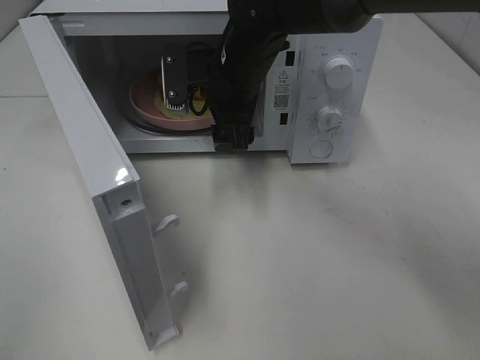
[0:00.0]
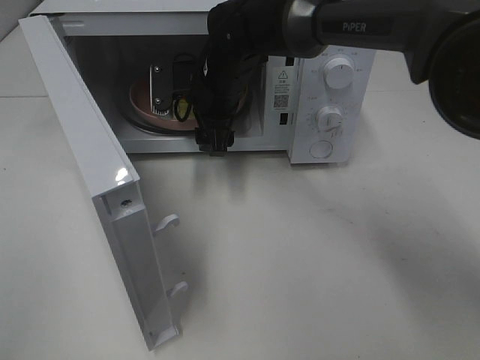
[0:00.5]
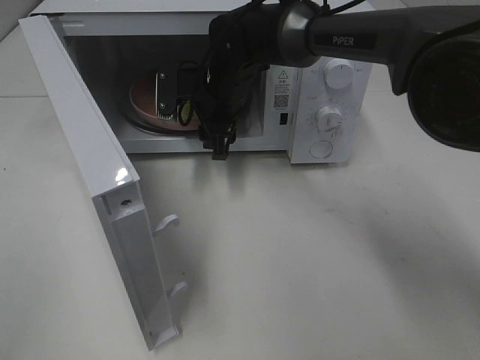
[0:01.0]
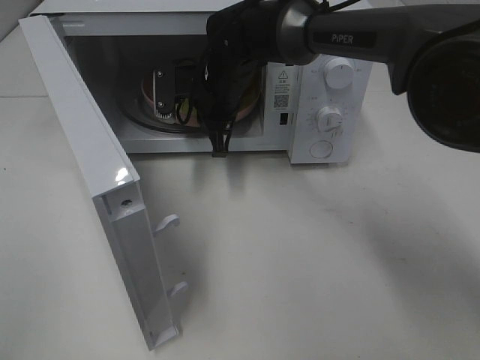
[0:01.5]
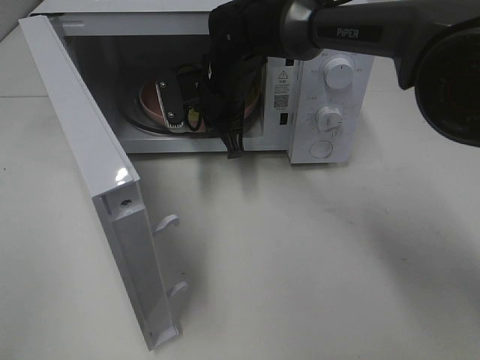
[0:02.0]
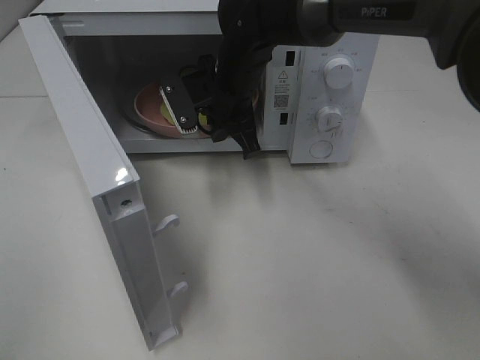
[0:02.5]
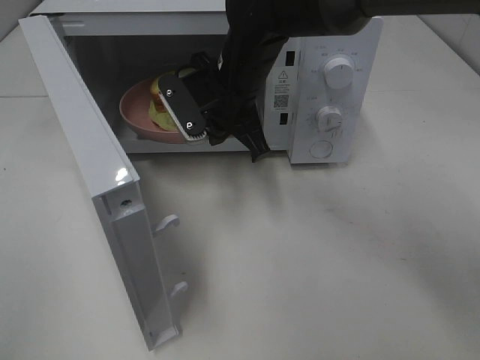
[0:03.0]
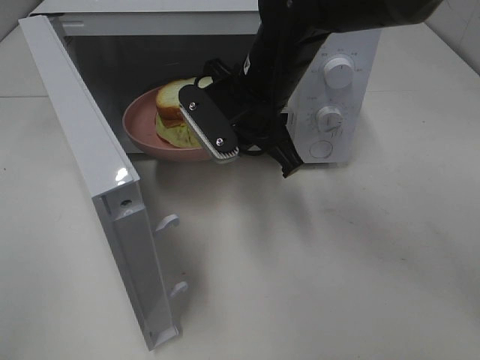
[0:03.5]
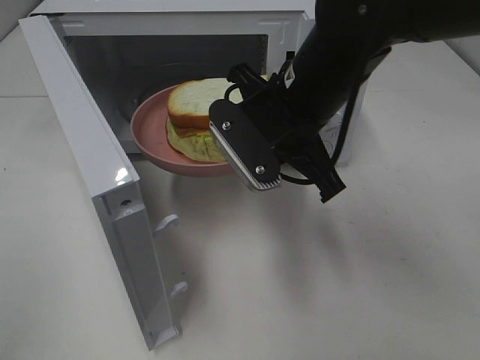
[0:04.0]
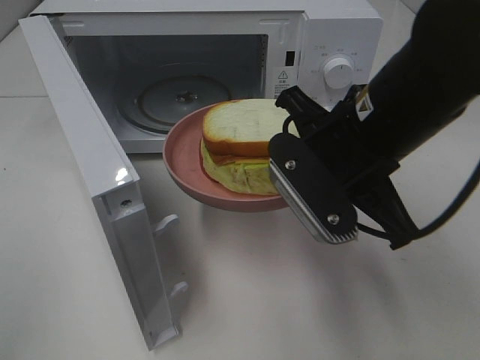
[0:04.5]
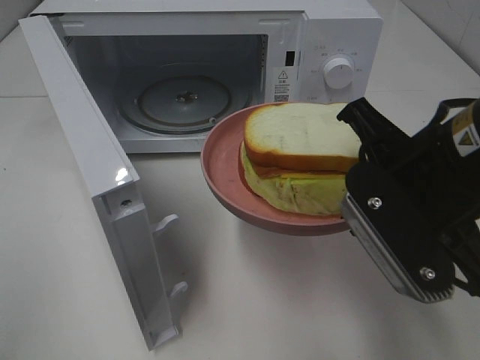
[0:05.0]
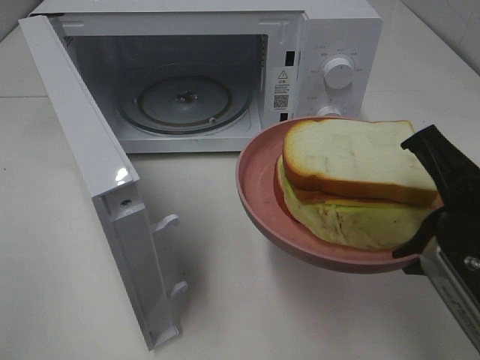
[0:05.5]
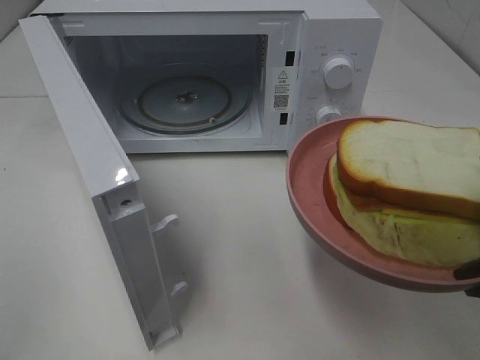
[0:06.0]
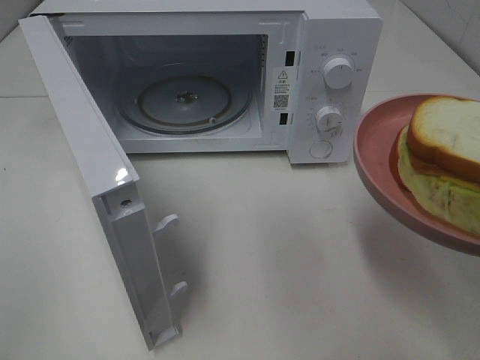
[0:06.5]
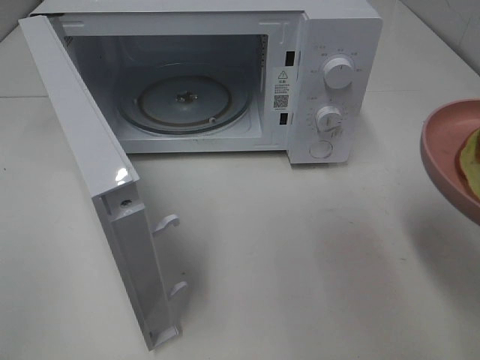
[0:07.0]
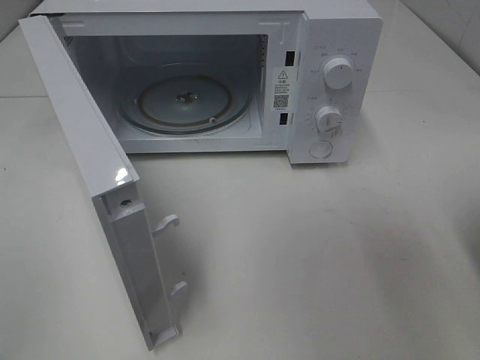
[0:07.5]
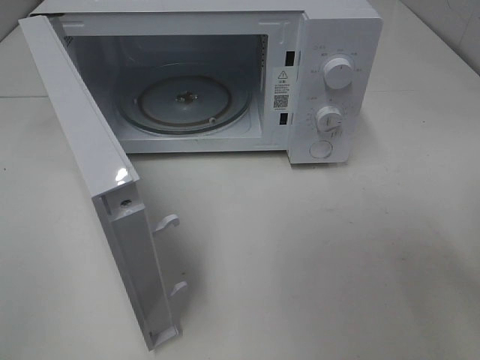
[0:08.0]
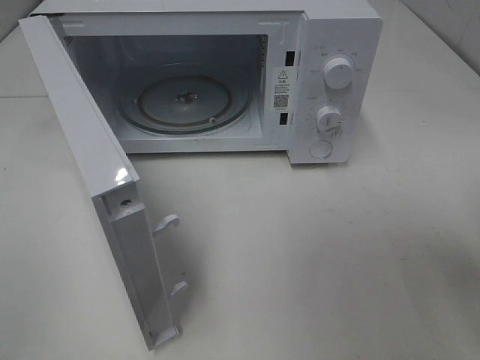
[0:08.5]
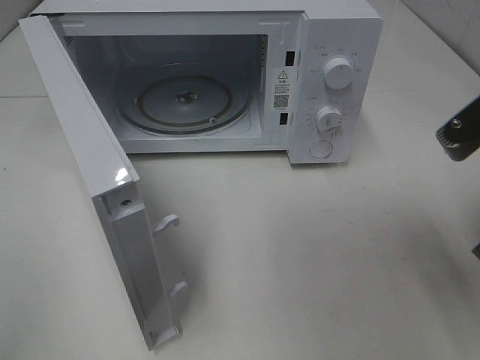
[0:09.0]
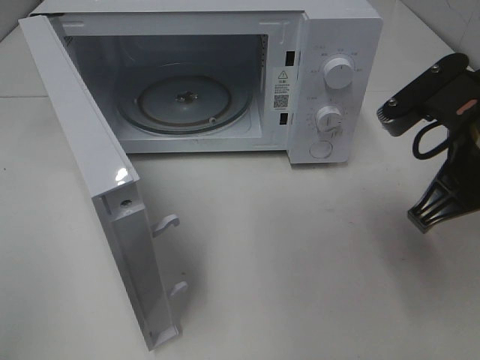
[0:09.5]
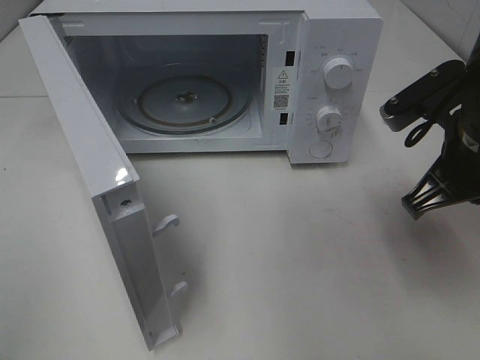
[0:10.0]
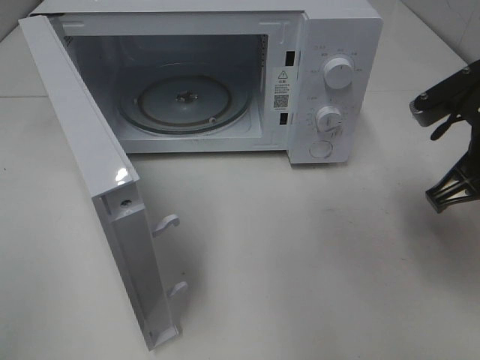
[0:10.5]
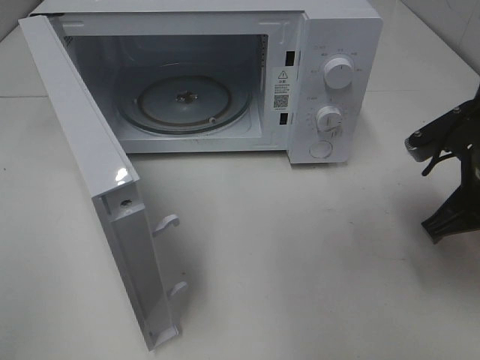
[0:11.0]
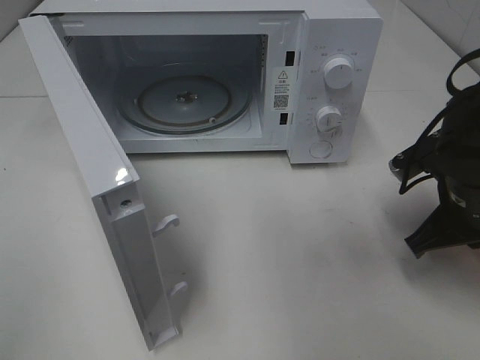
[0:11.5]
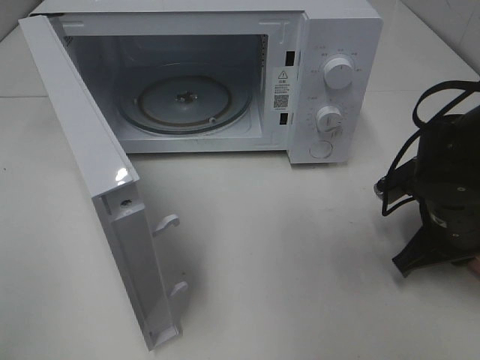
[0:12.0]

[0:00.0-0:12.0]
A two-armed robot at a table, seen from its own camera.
Task of the whole recording: Heat Sandwich.
0:00.0 to 0:02.0: The right gripper changes place by about 5 cm, and closes up.
0:02.0 to 0:04.0: The right gripper goes roughly 20 cm backward, to the right and upward.
0:04.0 to 0:06.0: The right gripper shifts about 25 cm backward and to the right.
0:08.0 to 0:10.0: The right gripper heads forward and to the left, covering about 15 cm.
0:10.0 to 0:12.0: The right gripper is displaced downward by some 10 cm.

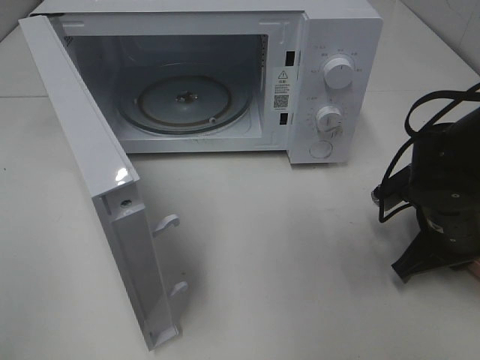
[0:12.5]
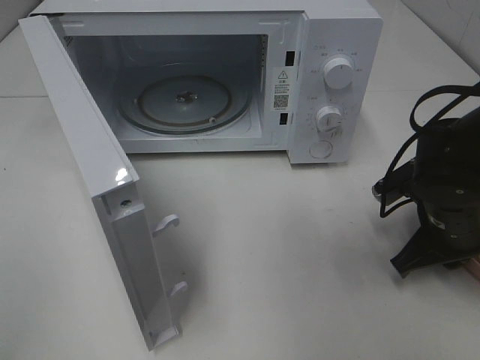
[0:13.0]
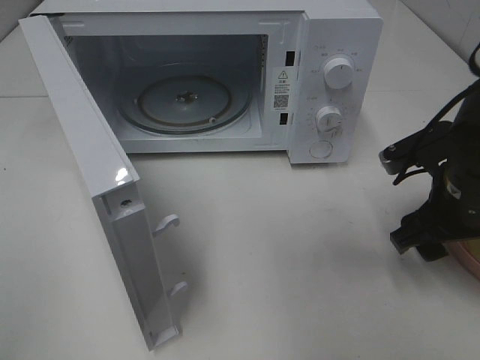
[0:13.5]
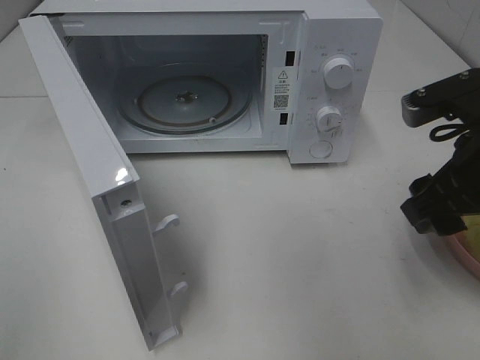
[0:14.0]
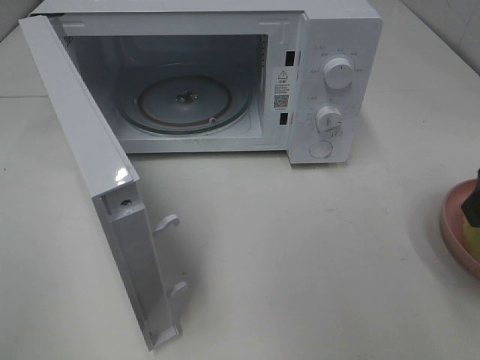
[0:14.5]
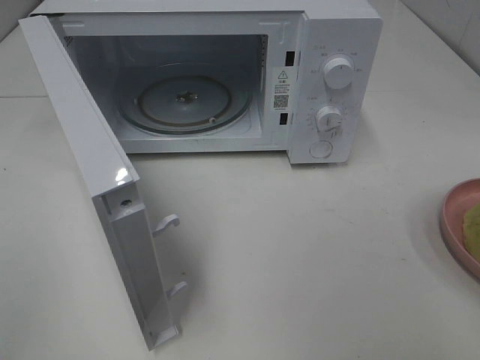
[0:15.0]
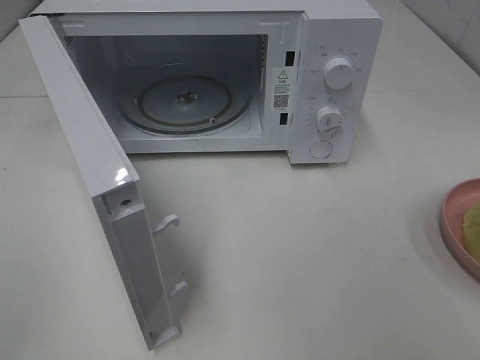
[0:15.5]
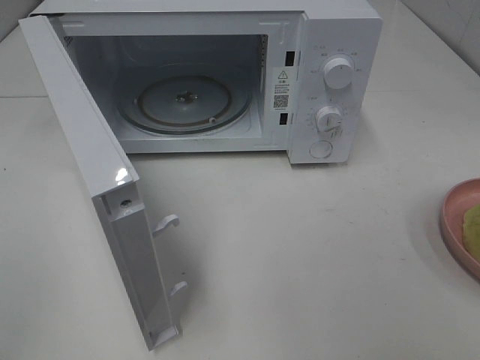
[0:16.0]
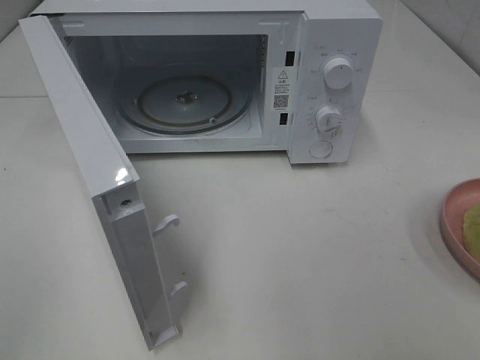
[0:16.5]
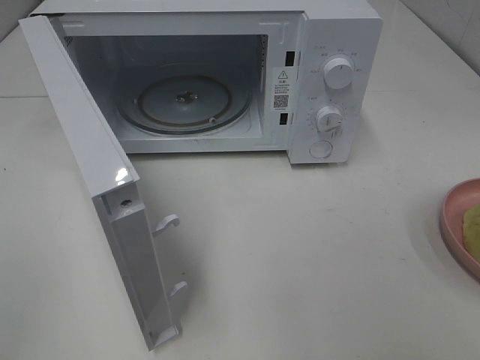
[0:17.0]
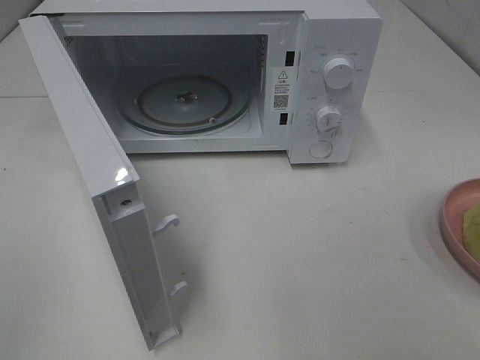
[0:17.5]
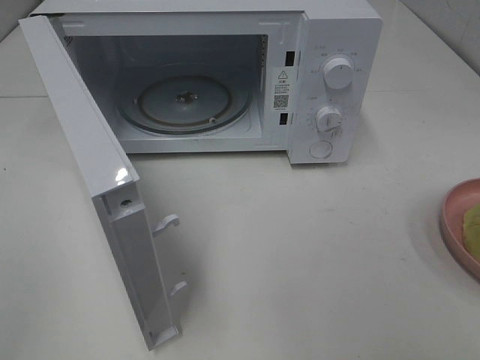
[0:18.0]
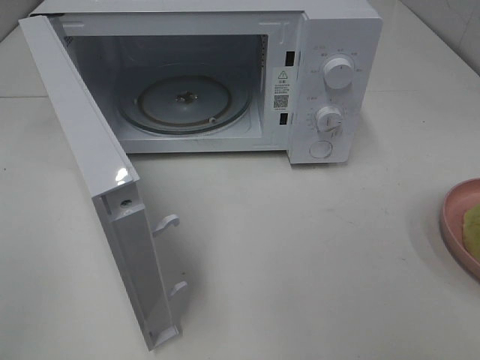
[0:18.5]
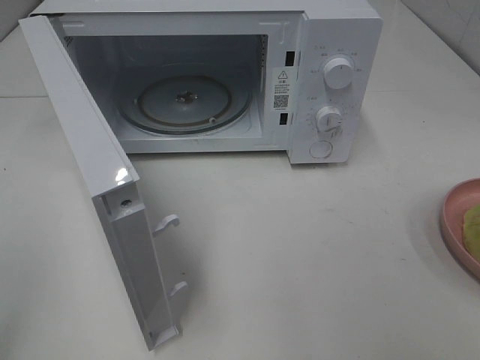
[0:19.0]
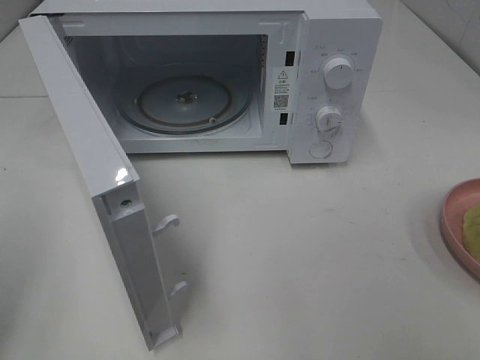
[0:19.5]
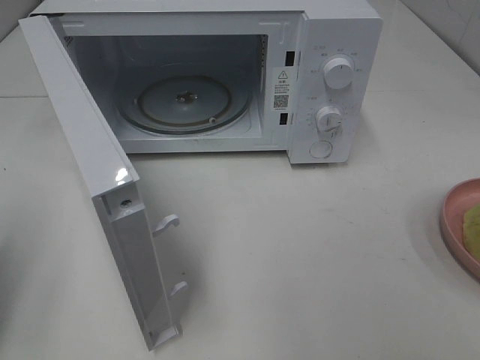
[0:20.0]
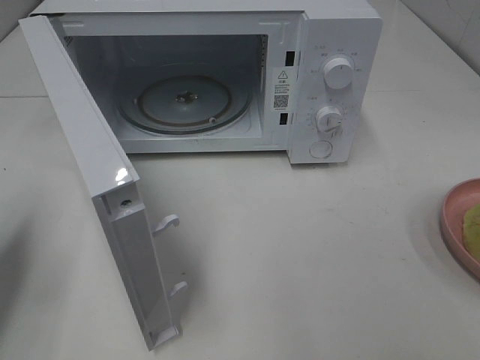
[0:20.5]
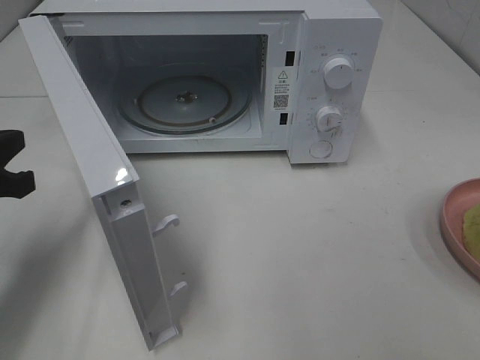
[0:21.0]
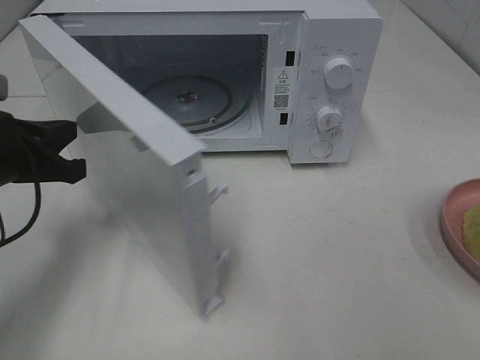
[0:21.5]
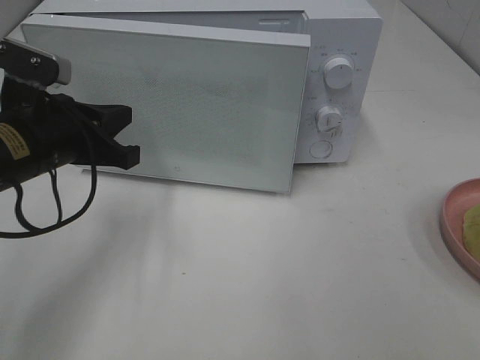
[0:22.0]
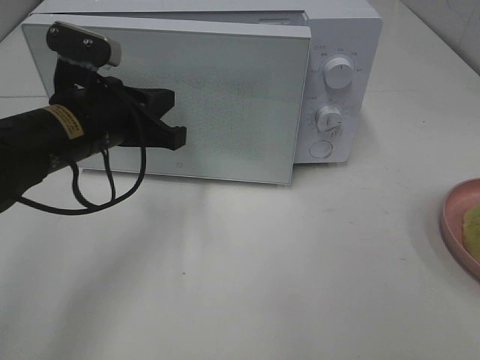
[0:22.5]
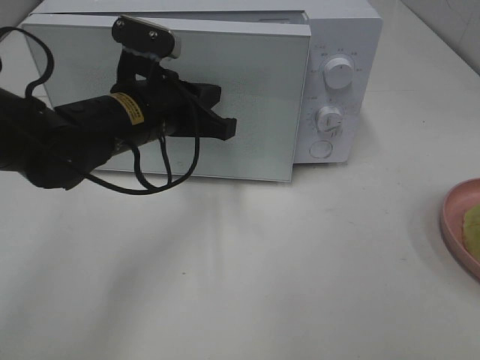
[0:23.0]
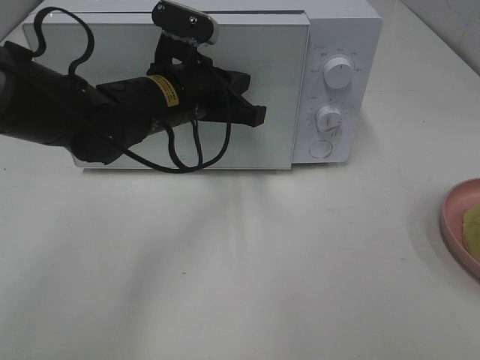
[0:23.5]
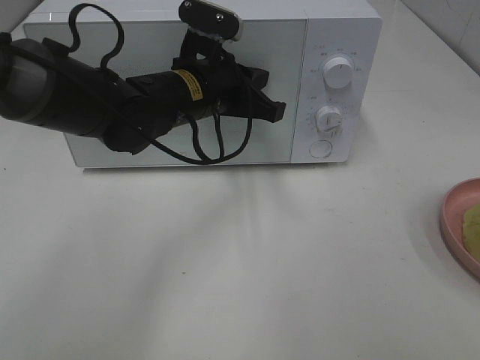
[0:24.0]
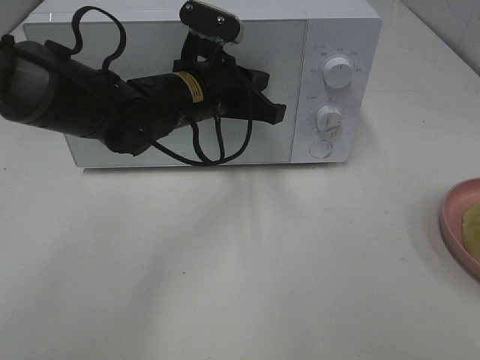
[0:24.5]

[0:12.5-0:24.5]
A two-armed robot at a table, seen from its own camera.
Task of the whole recording: Heat Sandwich.
0:12.5 to 0:14.5: The right gripper moves upward and backward, about 20 cm, and opens.
0:14.5 to 0:16.5: The right gripper is displaced backward by some 15 cm.
0:16.5 to 0:18.5: Both grippers stay put.
0:18.5 to 0:20.5: The left gripper travels forward and downward by approximately 20 cm, and closes its fingers.
0:20.5 to 0:22.5: The left gripper moves to the right and forward, some 20 cm.
0:22.5 to 0:24.5: The left gripper is displaced to the right and forward by approximately 10 cm.

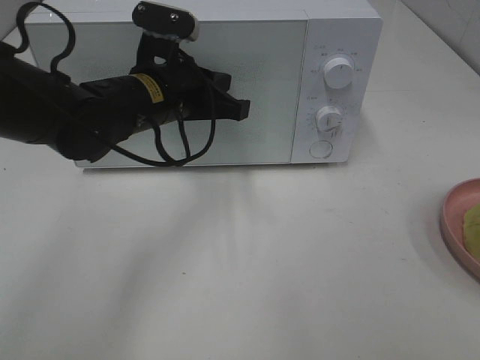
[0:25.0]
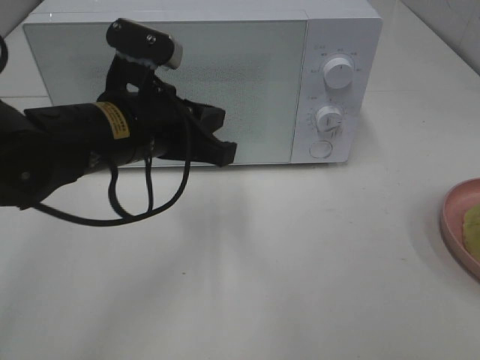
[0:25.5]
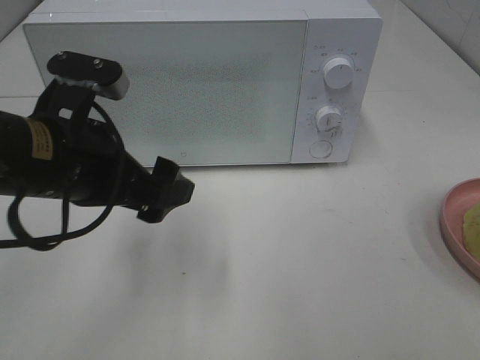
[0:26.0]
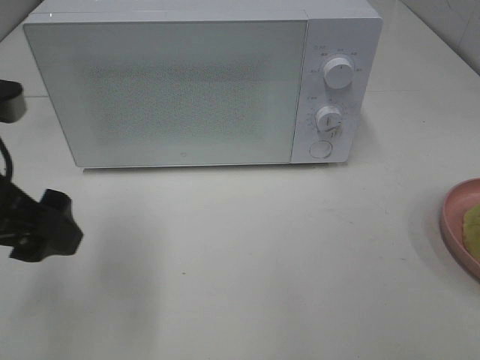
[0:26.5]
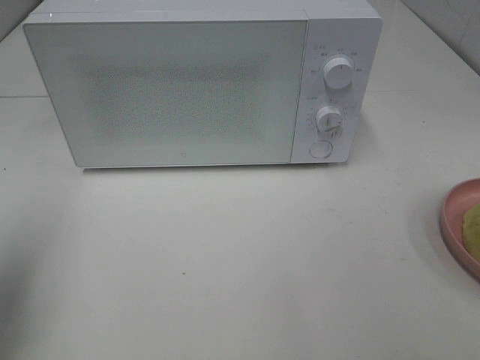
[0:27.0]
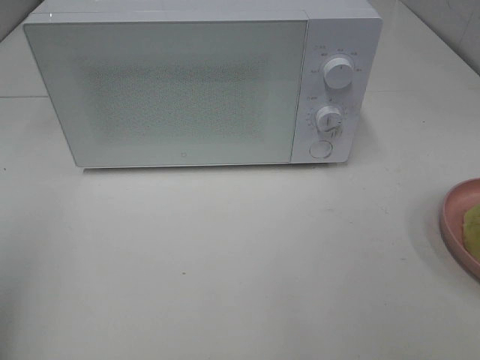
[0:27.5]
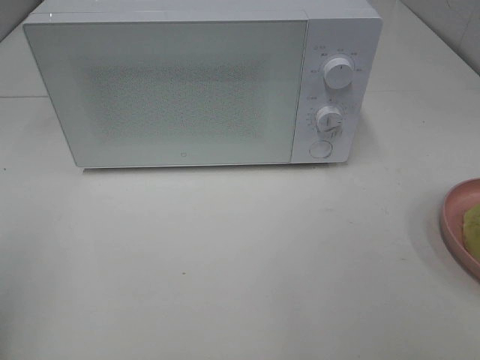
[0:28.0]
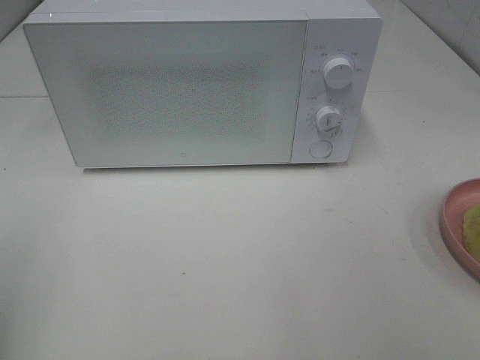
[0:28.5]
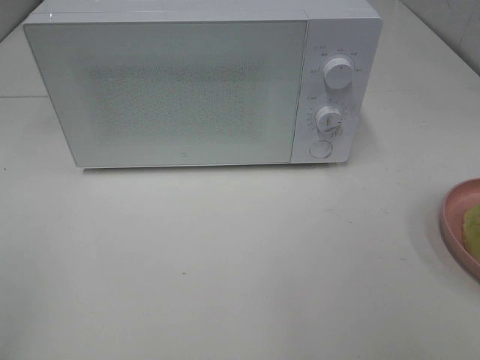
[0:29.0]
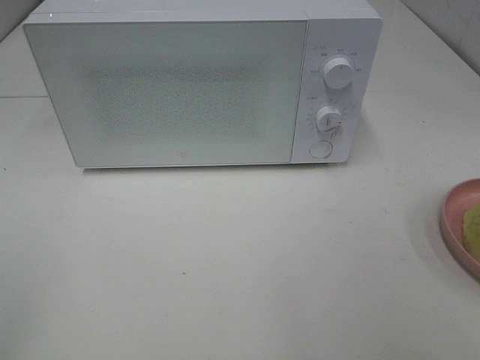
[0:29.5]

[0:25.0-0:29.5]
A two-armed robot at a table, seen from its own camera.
Task of the whole recording: Heat Sandwich.
0:25.0 to 0:27.0: The left gripper is displaced to the left and backward by approximately 30 cm, and opens up.
0:27.0 to 0:29.5: The left gripper travels backward by about 15 cm.
